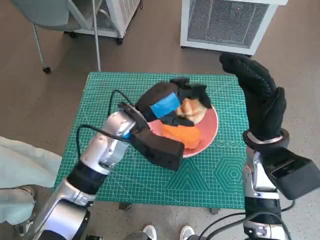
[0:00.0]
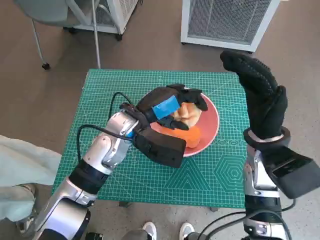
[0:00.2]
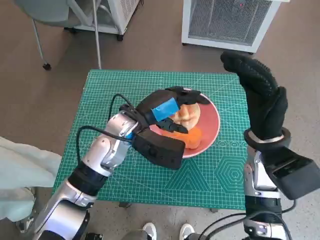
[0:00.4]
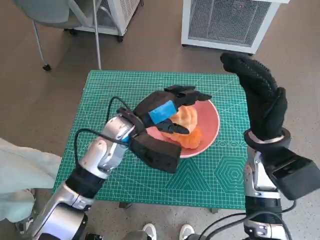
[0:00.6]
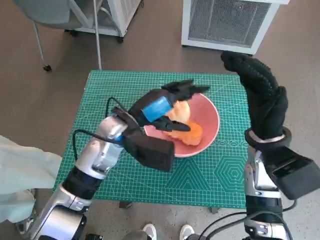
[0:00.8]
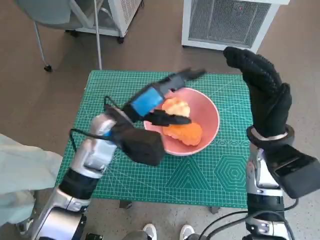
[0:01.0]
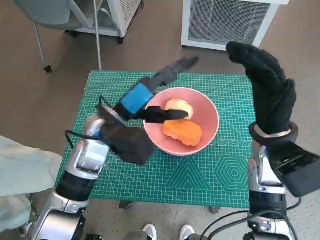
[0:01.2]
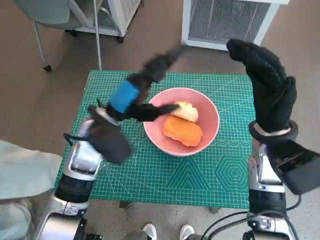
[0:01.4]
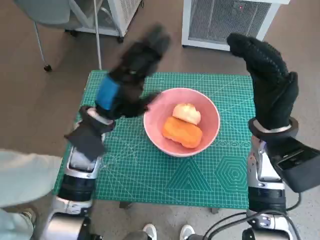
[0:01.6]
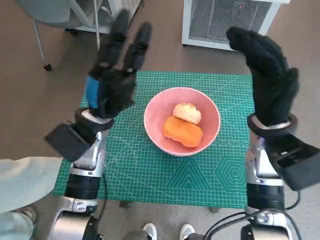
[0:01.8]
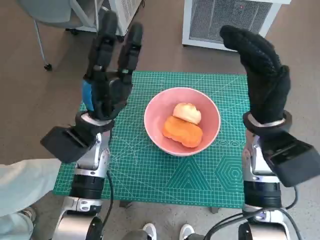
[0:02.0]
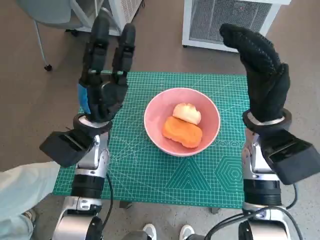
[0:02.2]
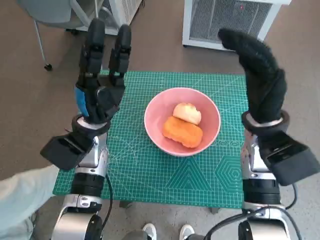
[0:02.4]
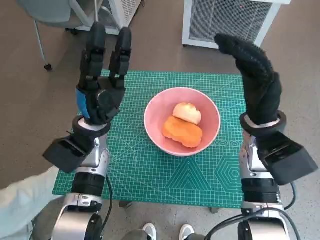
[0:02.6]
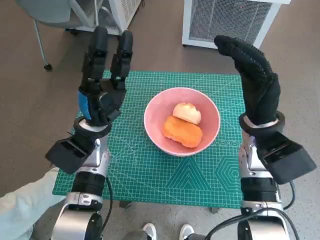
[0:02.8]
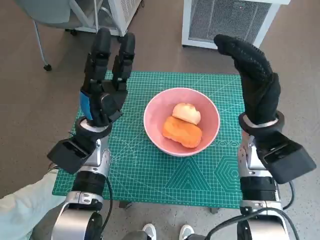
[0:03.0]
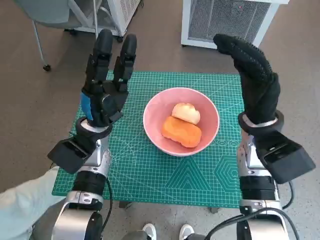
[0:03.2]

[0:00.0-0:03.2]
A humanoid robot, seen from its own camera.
Task of the whole recording: Push the bowl to the center of the table and put the bread into the bowl.
0:00.0 to 0:01.6: The left hand travels to the left by some 5 cm.
0:01.6 to 0:03.2: The left hand travels downward by some 5 cm.

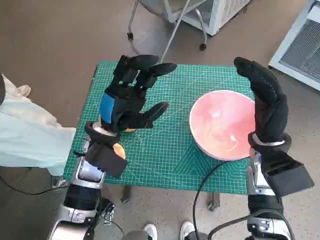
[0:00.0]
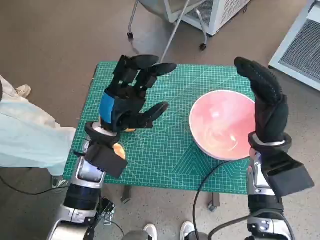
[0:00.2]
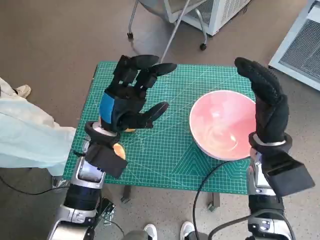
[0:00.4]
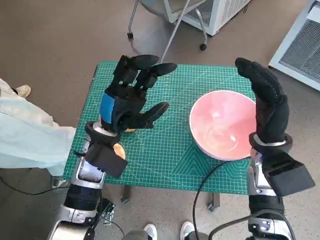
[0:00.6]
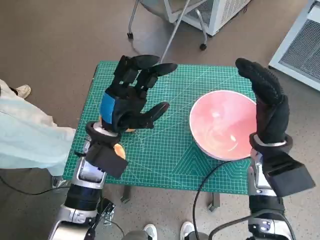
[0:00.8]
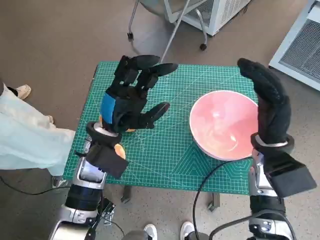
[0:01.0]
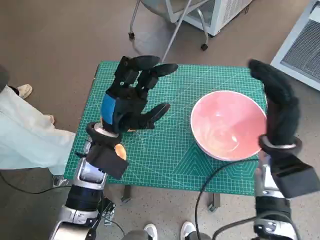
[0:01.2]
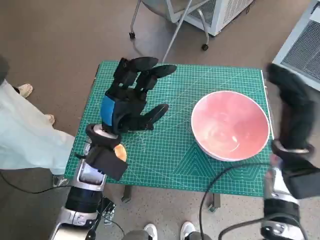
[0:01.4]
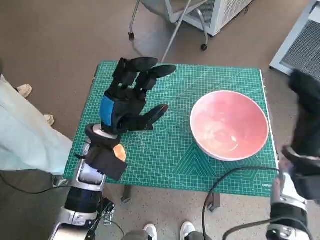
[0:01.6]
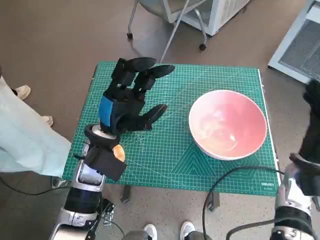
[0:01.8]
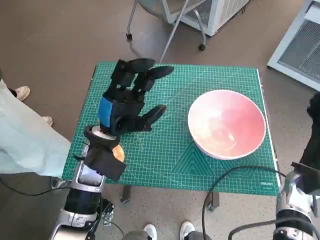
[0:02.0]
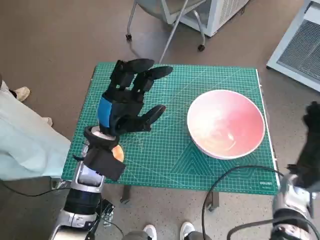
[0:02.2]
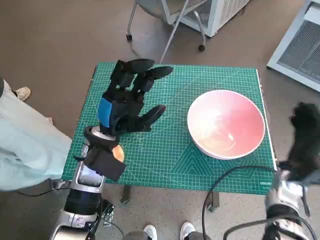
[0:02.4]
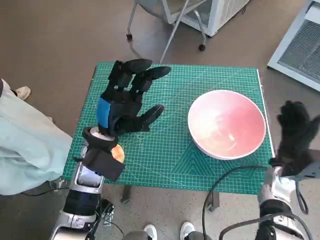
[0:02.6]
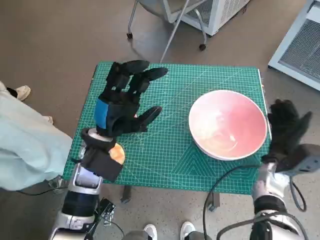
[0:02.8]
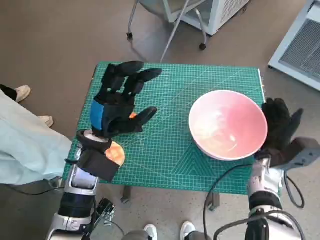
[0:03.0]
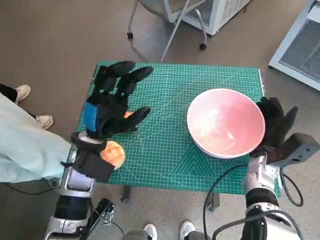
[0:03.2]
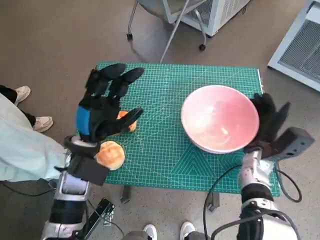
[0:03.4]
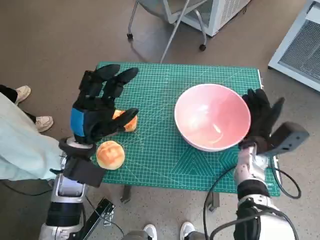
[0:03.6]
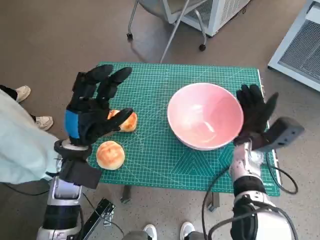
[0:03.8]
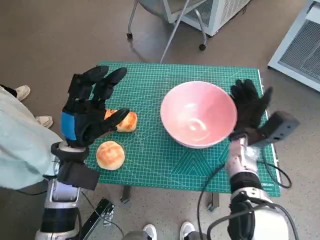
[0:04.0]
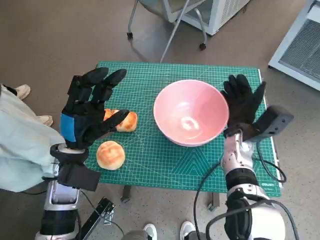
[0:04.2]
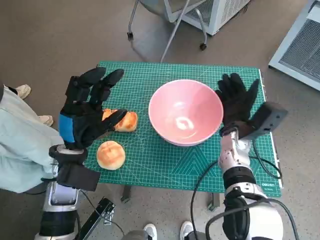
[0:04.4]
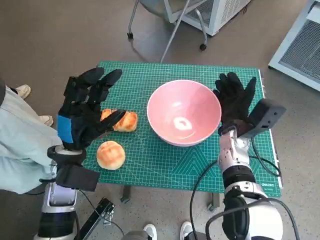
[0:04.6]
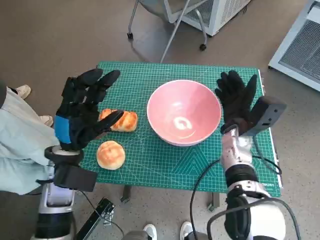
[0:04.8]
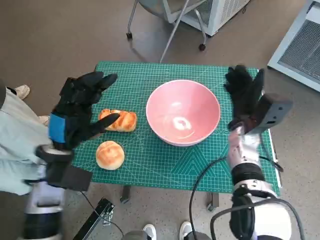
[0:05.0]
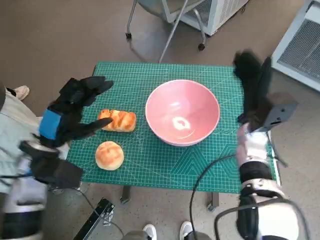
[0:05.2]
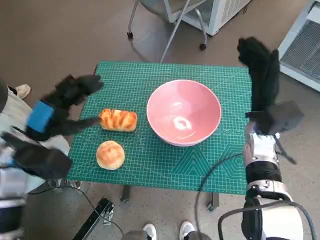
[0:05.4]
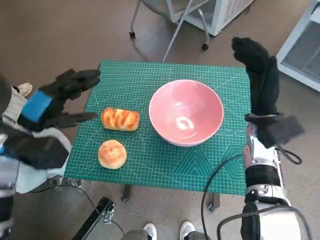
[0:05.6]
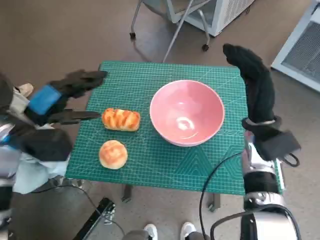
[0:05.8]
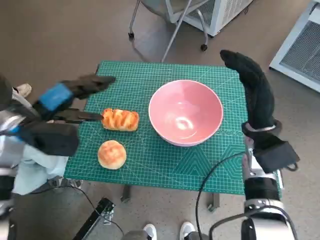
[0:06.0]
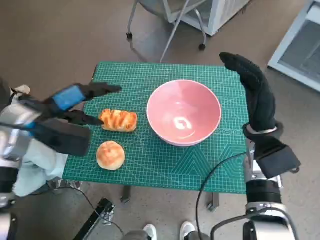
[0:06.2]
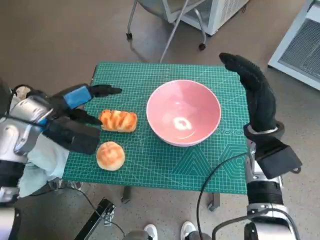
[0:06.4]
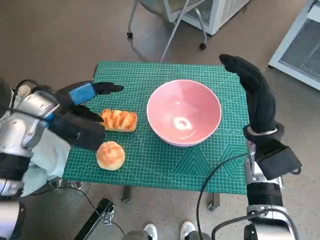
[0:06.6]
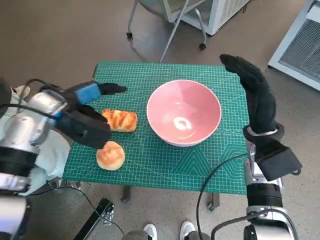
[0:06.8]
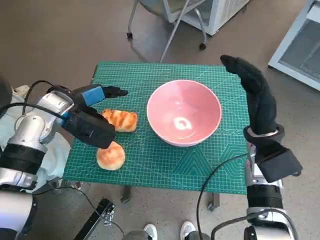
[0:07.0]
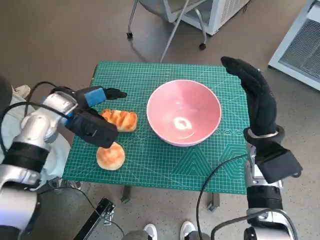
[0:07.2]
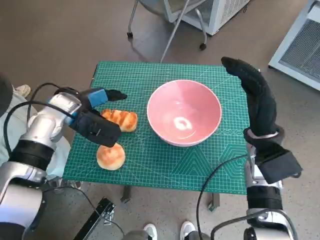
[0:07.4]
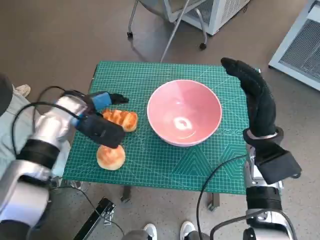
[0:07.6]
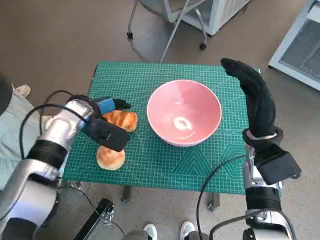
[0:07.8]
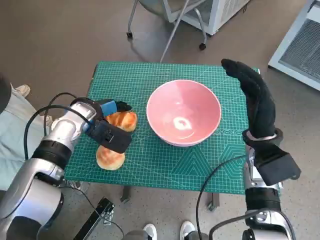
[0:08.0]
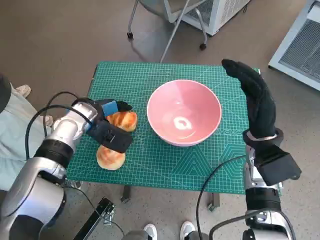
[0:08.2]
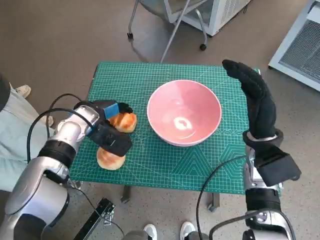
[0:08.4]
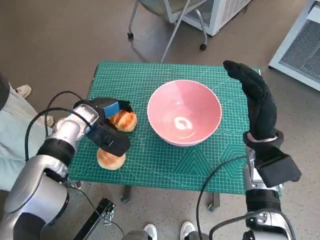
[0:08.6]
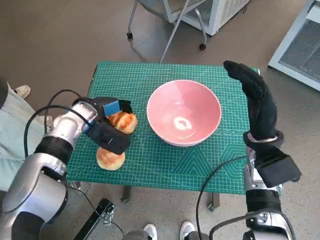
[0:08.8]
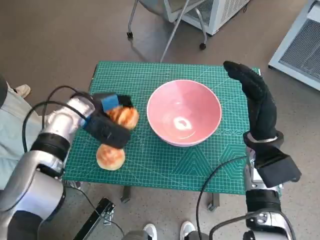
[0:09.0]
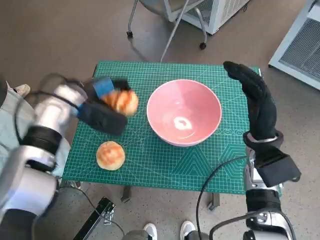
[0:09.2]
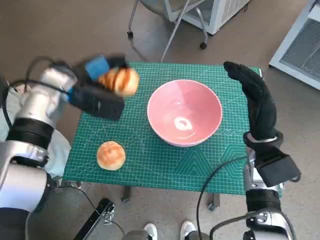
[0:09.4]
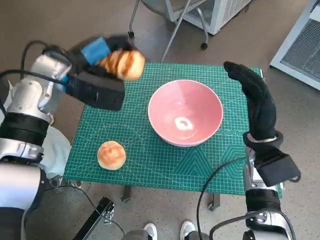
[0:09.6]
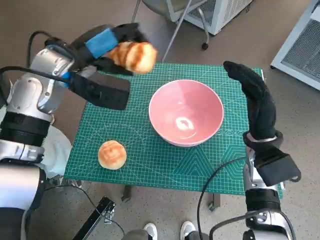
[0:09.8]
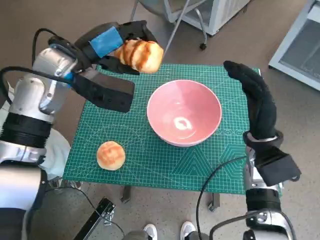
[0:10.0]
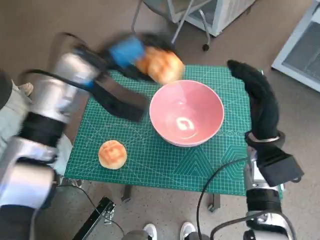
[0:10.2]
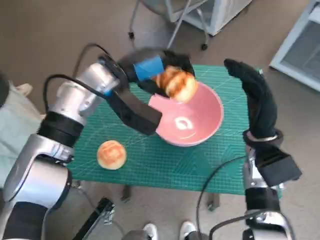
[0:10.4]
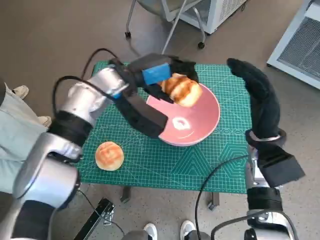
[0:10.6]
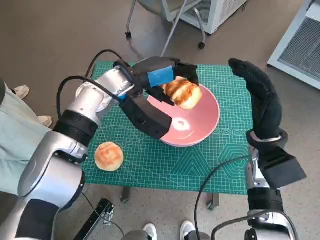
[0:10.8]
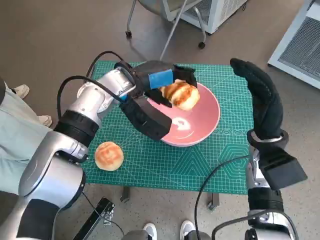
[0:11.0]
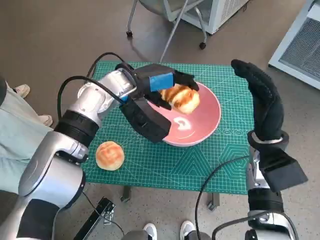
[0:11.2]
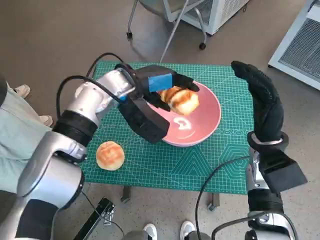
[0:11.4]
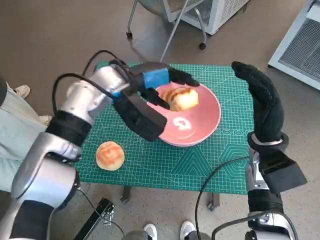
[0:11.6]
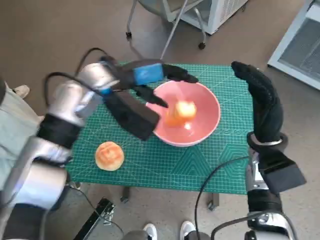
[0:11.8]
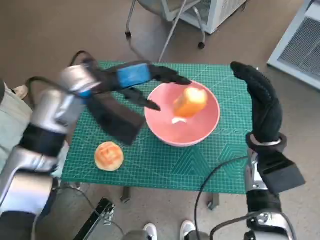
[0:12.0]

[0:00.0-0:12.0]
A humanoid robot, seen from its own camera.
Task of the whole recording: Push the bowl to the center of the table and put the bread into the bowl.
Step, 0:00.0 to 0:04.8: Move the pink bowl to the center of table with right hand.
Step, 0:05.0 to 0:08.4: Grasp the long bread with left hand.
Step, 0:08.6 to 0:12.0: Place the long bread in pink bowl with left hand.
0:01.6 to 0:03.0: The right hand moves downward, some 10 cm.
0:03.0 to 0:04.4: The right hand is displaced to the left by approximately 10 cm.
0:04.4 to 0:06.0: The right hand shifts about 5 cm upward; the left hand heads to the left and upward, covering about 10 cm.
0:06.0 to 0:07.6: The left hand travels to the right and forward by roughly 10 cm.
0:07.6 to 0:09.0: The hands stay close to where they were, moving slightly.
0:09.0 to 0:10.4: The left hand travels upward and to the right by about 15 cm.

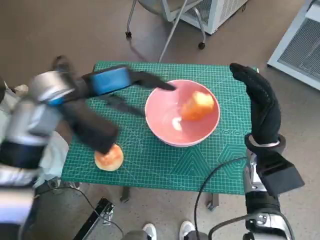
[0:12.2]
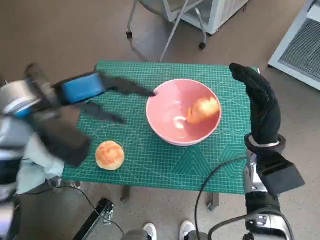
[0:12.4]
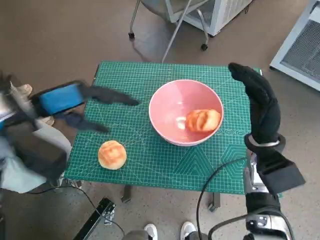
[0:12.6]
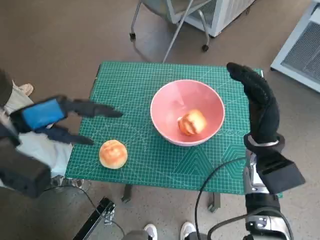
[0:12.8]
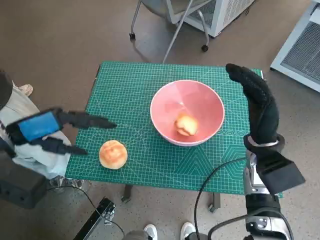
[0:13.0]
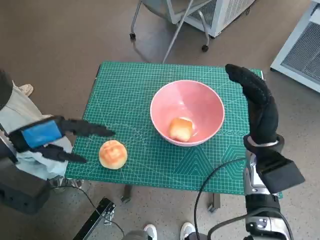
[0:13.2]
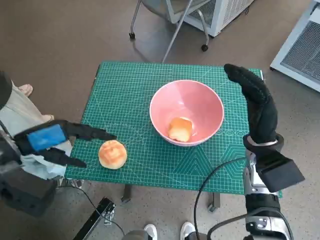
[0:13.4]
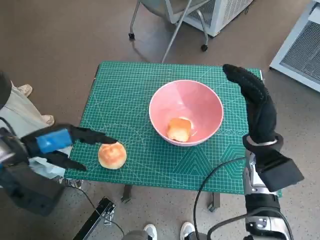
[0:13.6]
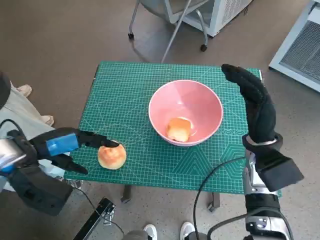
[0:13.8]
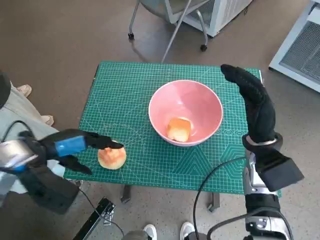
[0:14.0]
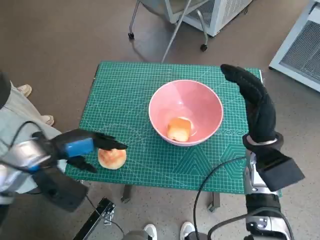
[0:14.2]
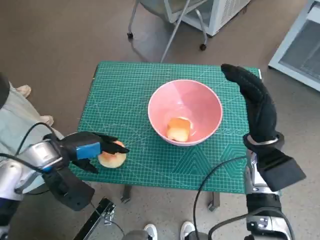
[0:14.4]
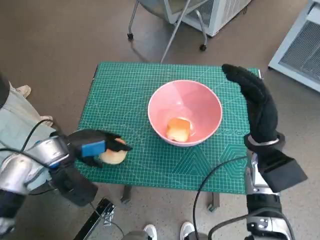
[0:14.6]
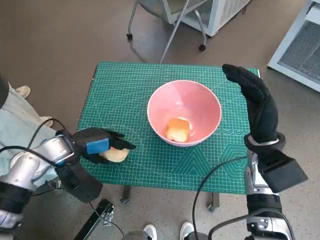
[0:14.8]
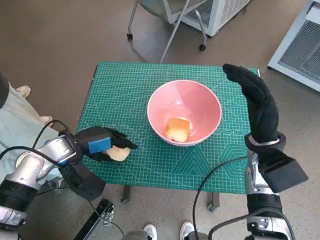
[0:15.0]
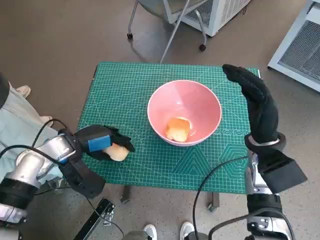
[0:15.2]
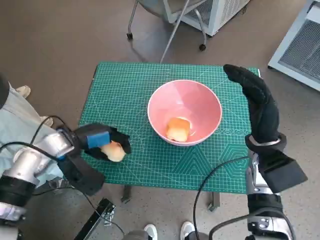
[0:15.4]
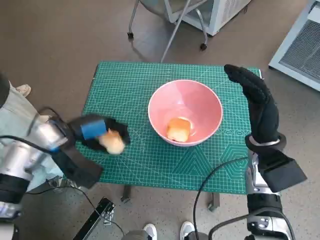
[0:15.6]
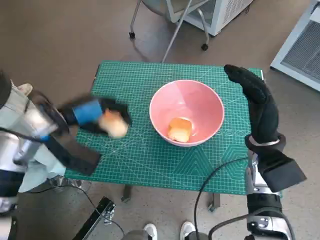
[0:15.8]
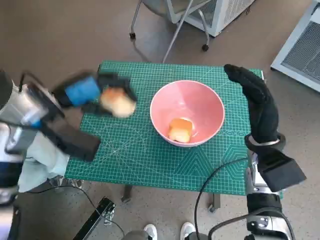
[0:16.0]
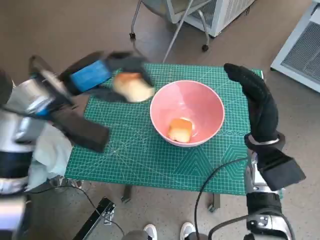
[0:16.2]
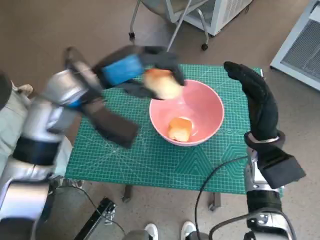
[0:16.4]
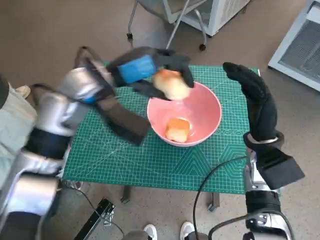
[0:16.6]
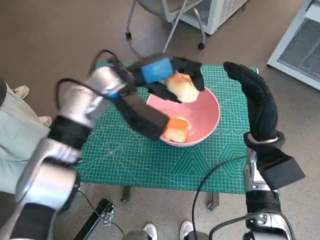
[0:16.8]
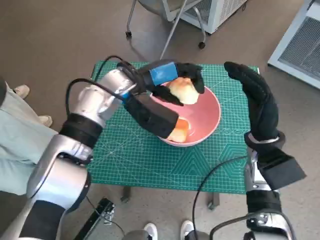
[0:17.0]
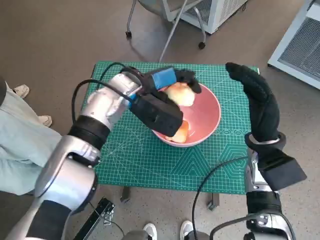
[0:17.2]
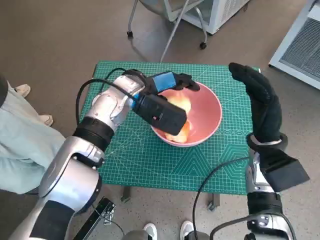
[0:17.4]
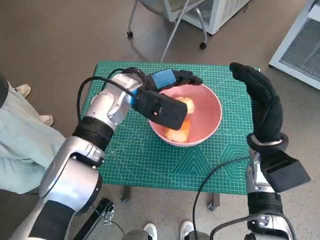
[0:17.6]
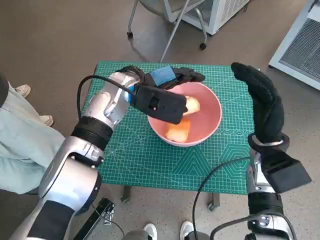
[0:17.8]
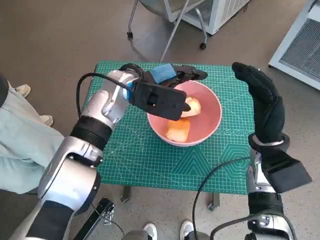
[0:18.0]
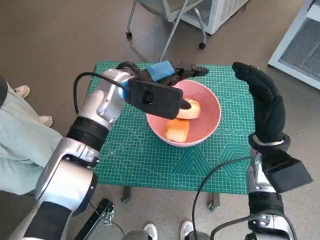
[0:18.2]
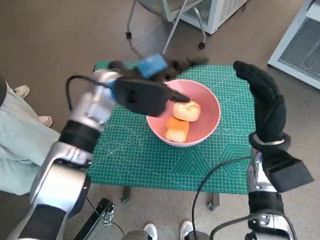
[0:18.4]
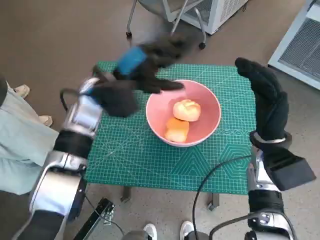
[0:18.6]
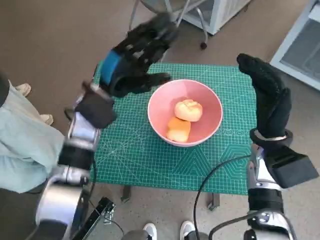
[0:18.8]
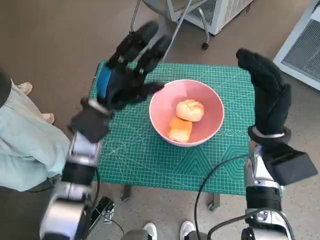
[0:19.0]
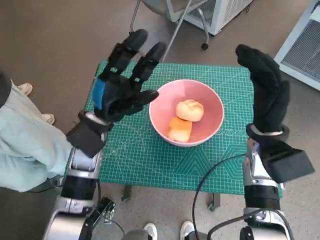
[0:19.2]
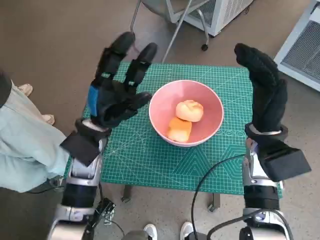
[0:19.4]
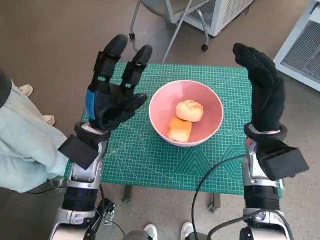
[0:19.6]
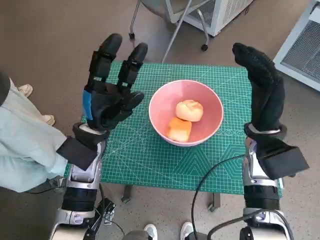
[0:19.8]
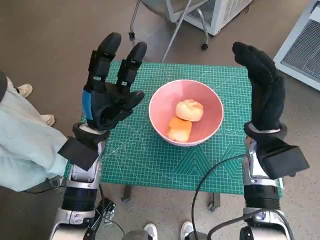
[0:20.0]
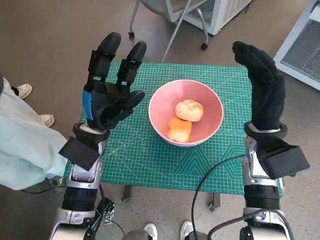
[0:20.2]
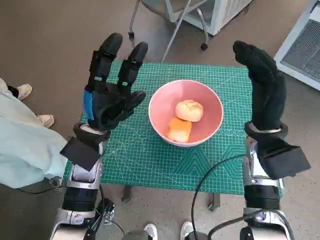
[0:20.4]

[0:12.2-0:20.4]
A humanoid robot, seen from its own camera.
Task of the whole recording: Push the bowl to the center of the table and put the bread into the bowl.
Step, 0:12.2 to 0:14.6: Grasp the round bread with left hand.
Step, 0:14.8 to 0:17.8: Place the round bread in pink bowl with left hand.
0:12.2 to 0:13.8: The left hand heads to the left, backward and downward, covering approximately 15 cm.
0:13.8 to 0:15.4: The left hand shifts some 10 cm downward and forward.
0:15.4 to 0:17.2: The left hand goes some 20 cm to the right, forward and upward.
0:17.2 to 0:18.8: The left hand is displaced to the left by about 5 cm.
0:18.8 to 0:20.4: The left hand goes about 5 cm backward.
